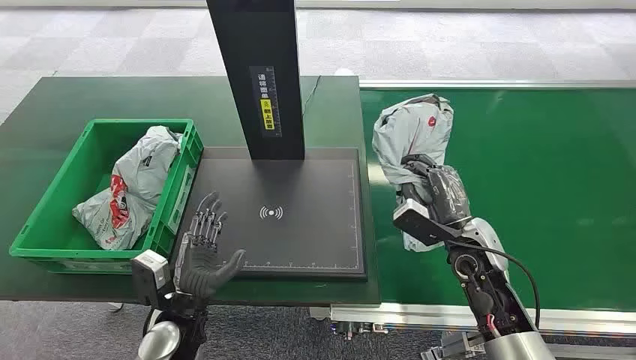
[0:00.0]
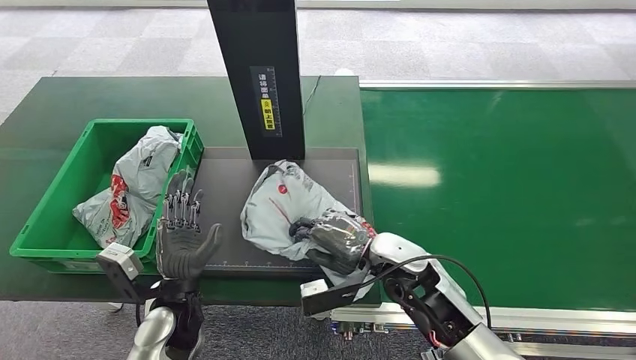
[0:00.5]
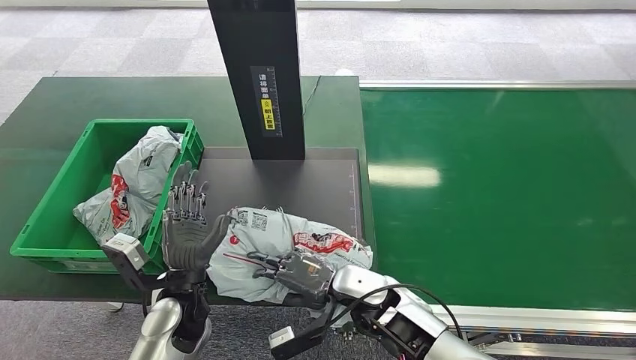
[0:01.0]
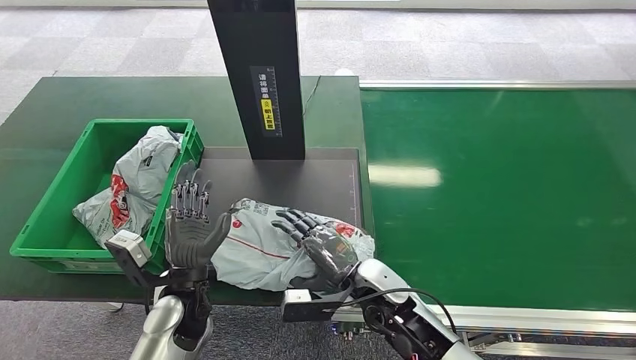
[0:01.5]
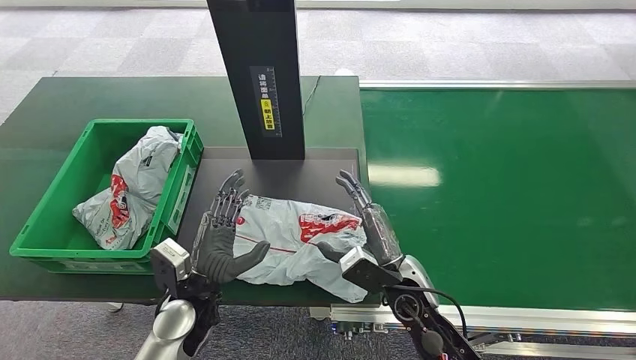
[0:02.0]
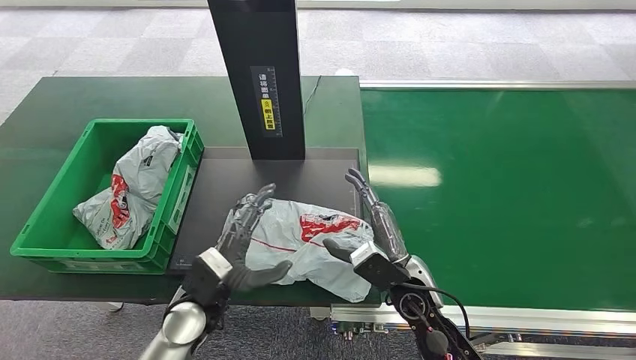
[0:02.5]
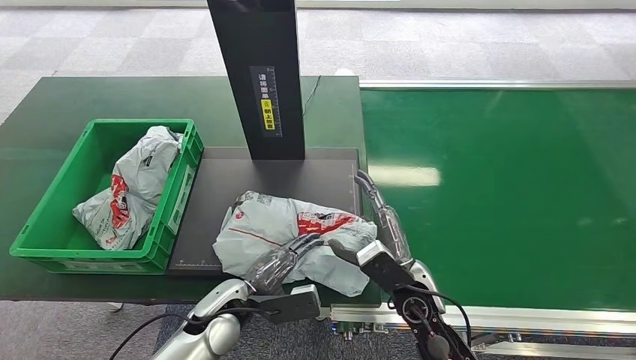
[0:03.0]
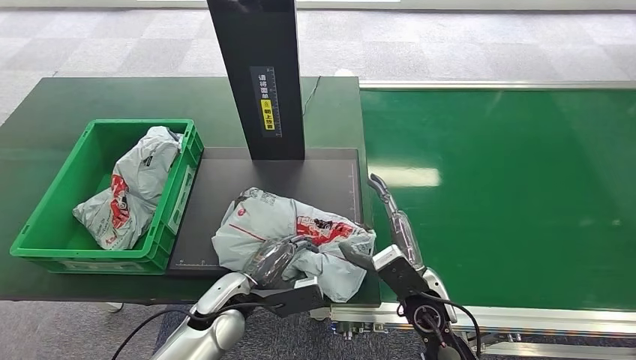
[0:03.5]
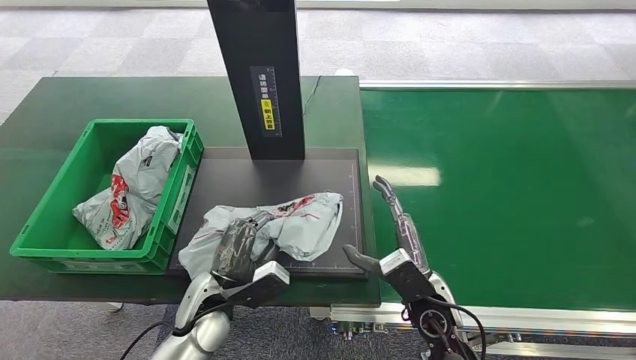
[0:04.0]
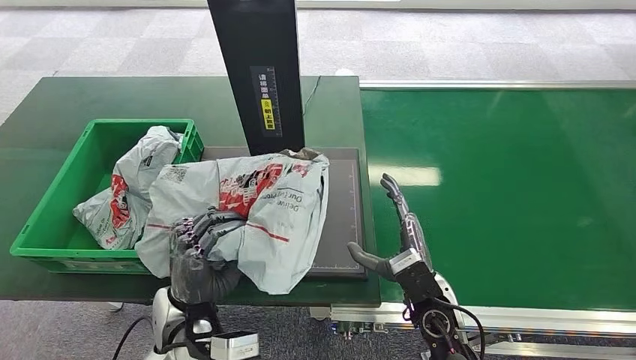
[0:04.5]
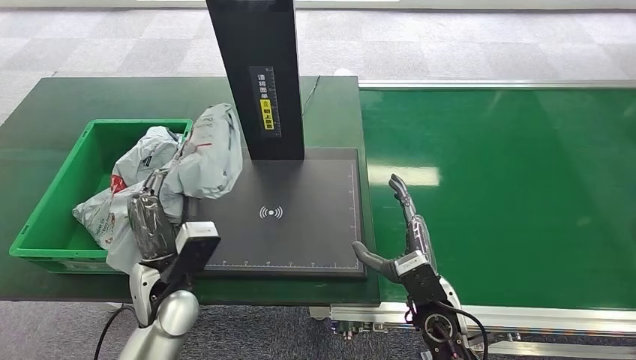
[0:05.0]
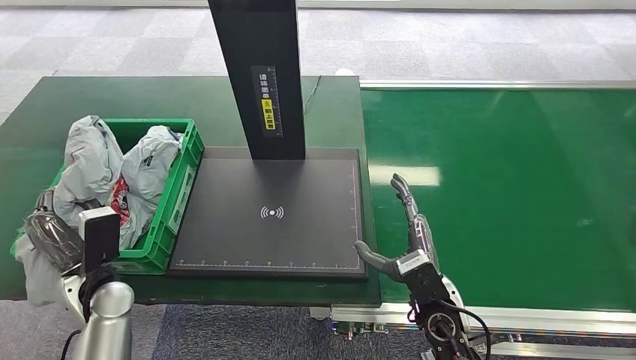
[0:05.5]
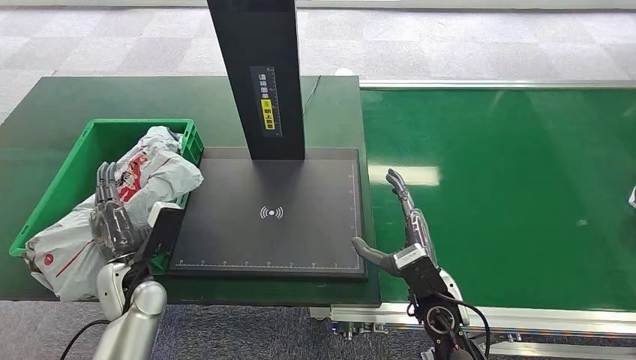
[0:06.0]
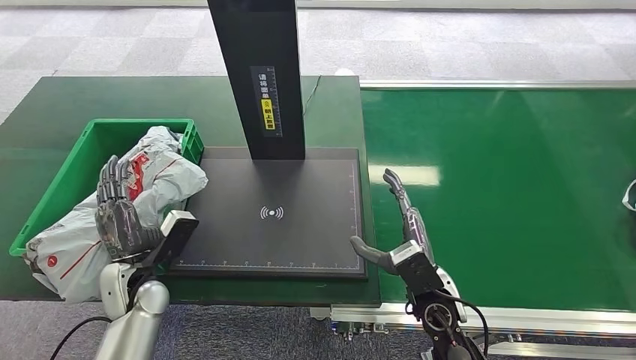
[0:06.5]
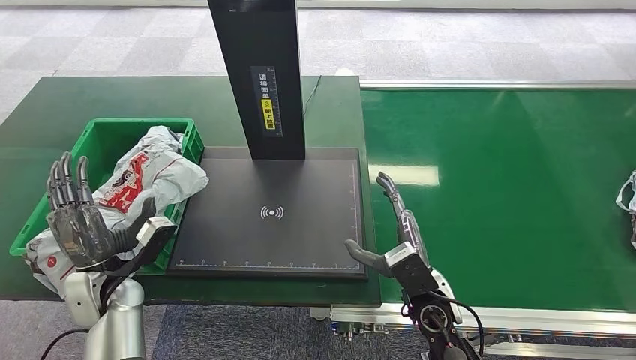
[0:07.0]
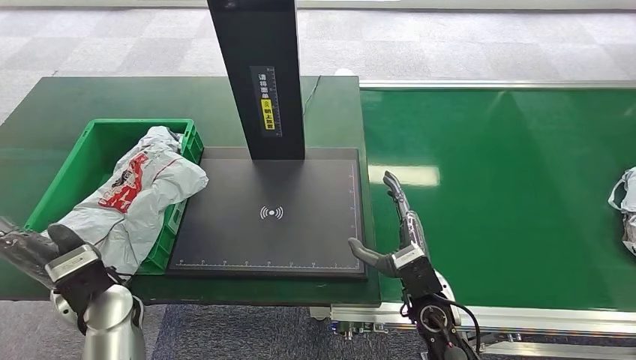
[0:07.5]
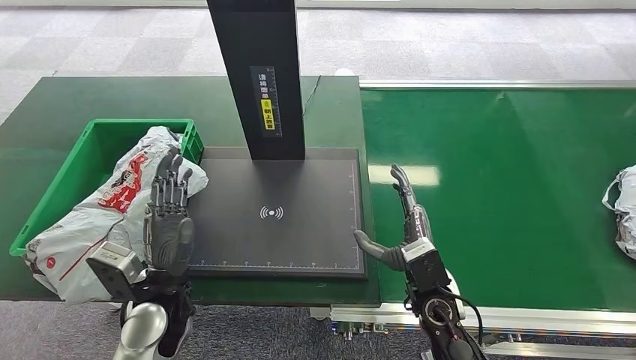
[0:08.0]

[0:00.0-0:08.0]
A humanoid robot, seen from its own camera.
0:04.0 to 0:06.0: The left hand travels to the left by roughly 15 cm.
0:06.0 to 0:08.0: The left hand travels to the right and upward by approximately 10 cm.
